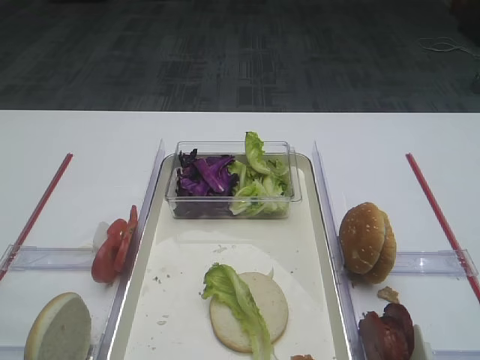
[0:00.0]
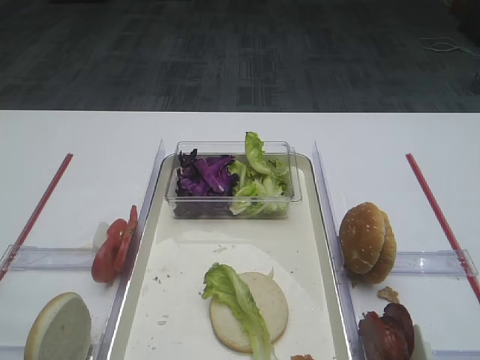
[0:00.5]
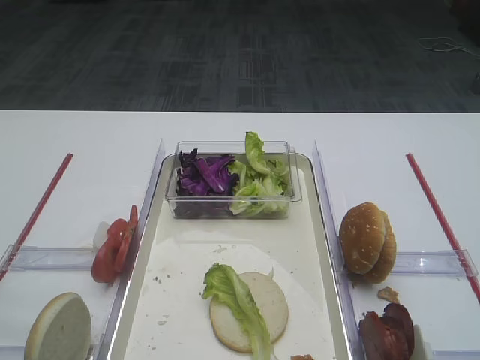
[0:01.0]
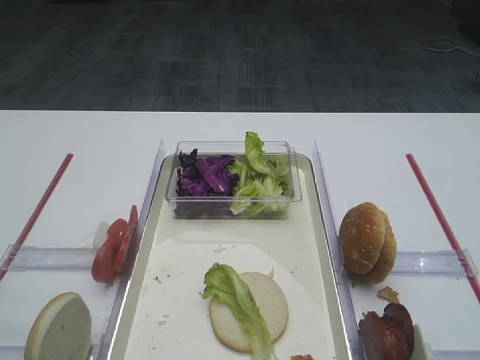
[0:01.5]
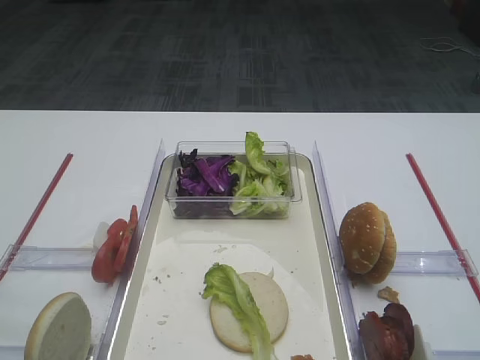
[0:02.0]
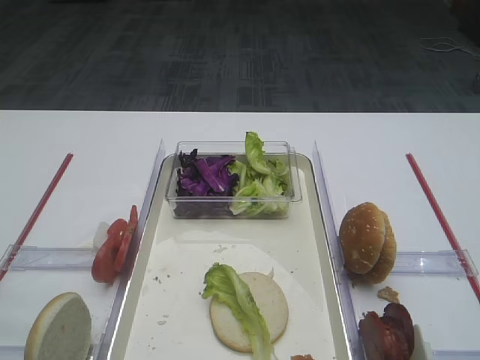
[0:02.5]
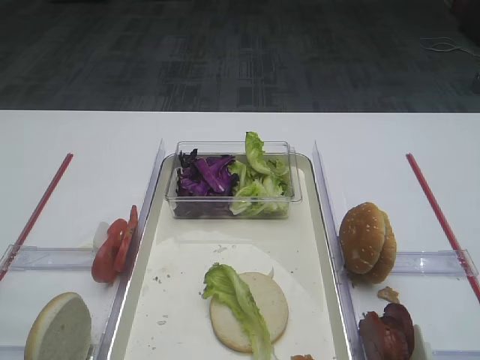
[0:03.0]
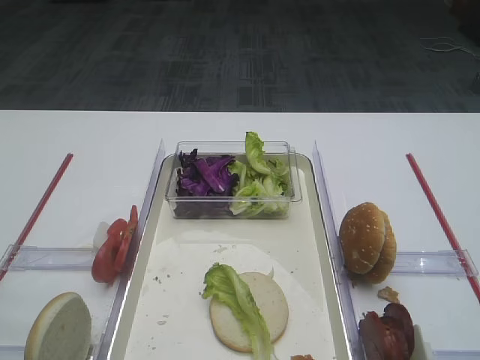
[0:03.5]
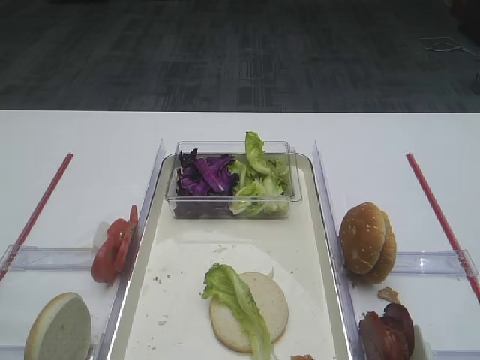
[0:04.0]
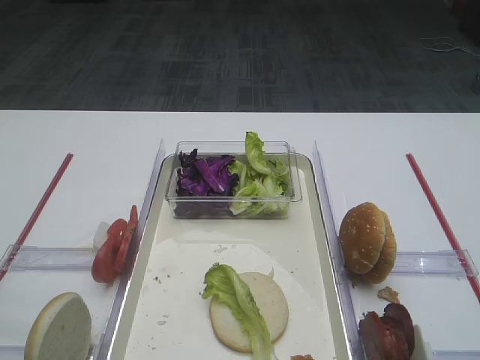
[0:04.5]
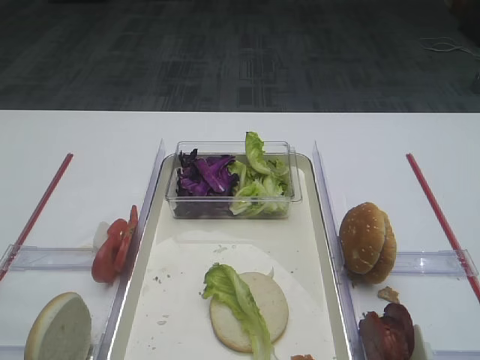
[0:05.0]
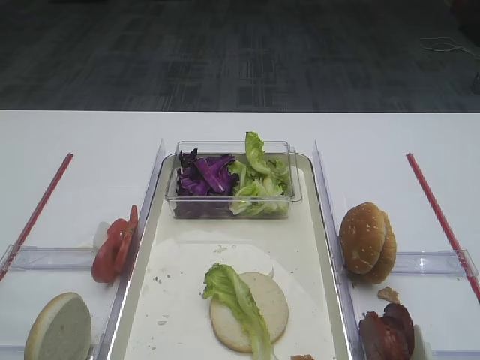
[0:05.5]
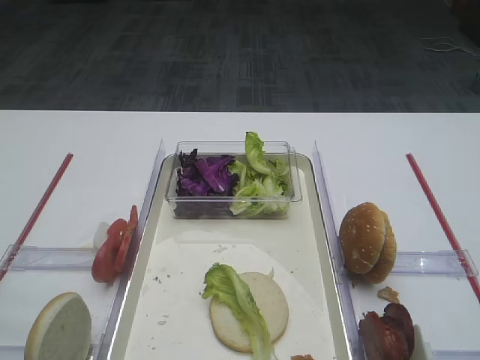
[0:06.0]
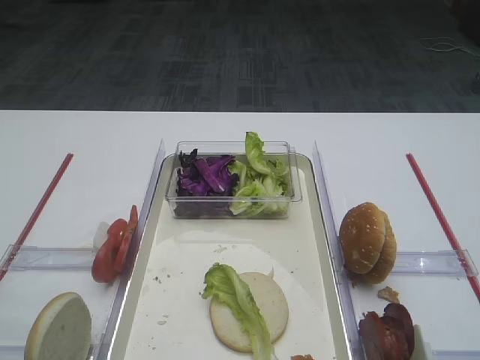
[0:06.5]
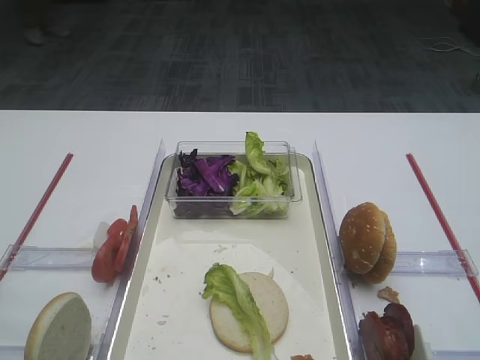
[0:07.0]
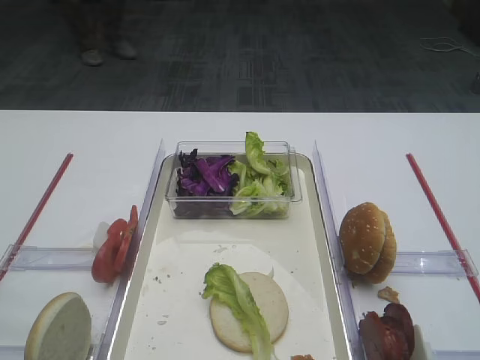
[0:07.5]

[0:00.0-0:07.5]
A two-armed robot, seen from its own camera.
0:00.0 to 0:07.5: Both grippers stay put.

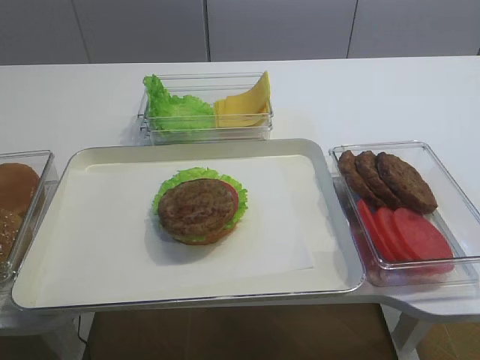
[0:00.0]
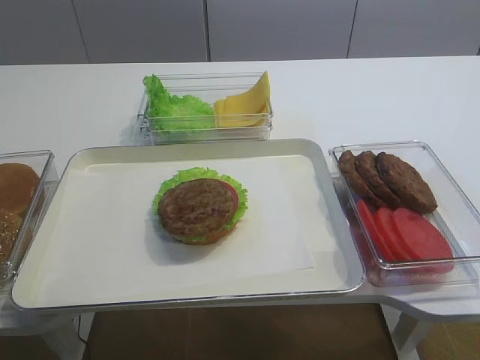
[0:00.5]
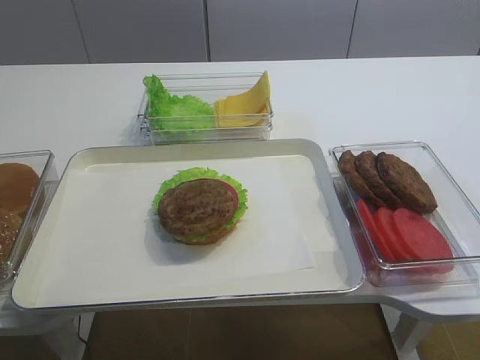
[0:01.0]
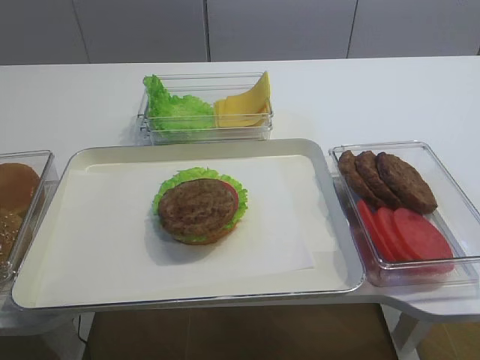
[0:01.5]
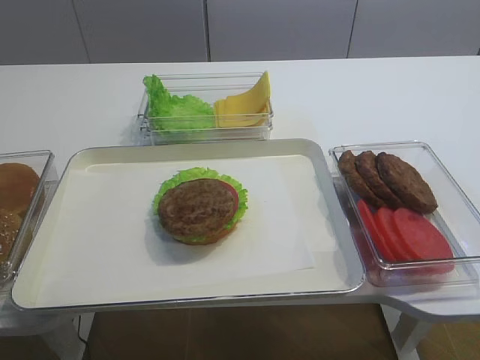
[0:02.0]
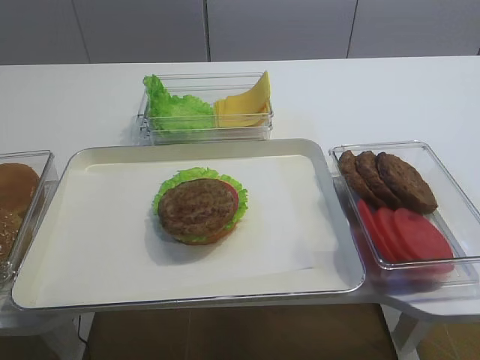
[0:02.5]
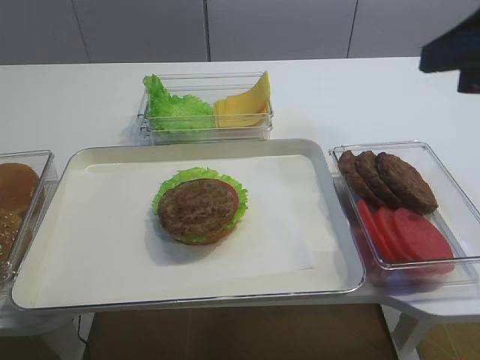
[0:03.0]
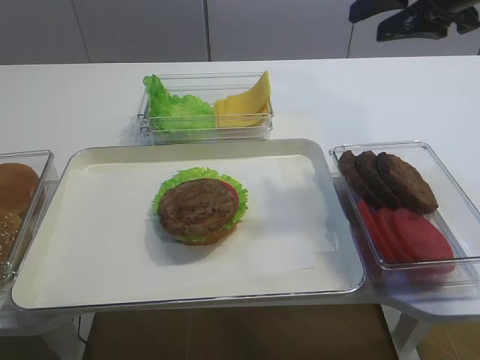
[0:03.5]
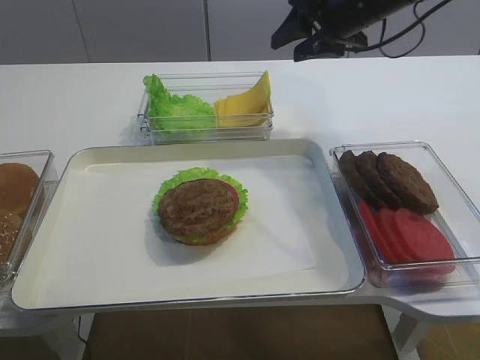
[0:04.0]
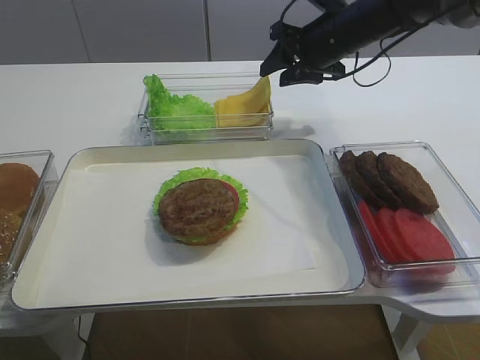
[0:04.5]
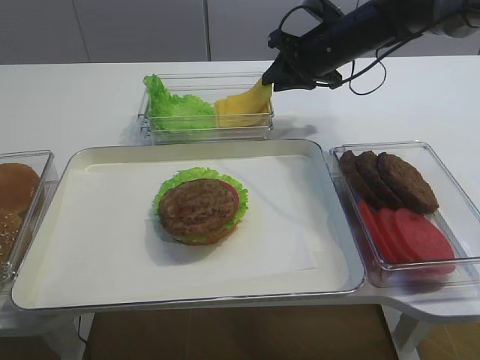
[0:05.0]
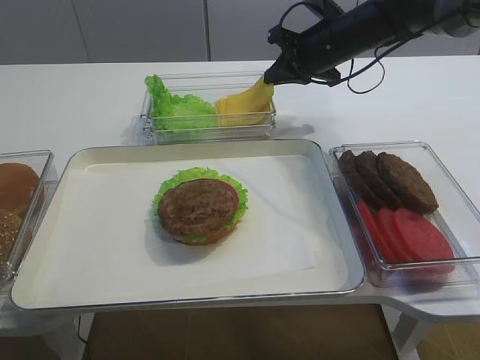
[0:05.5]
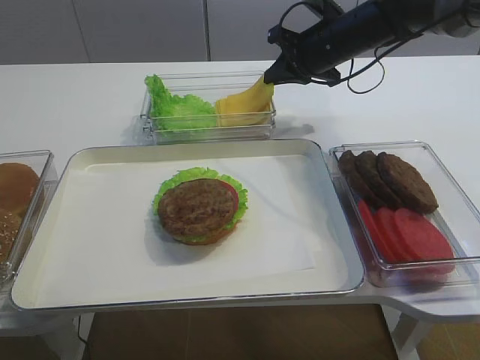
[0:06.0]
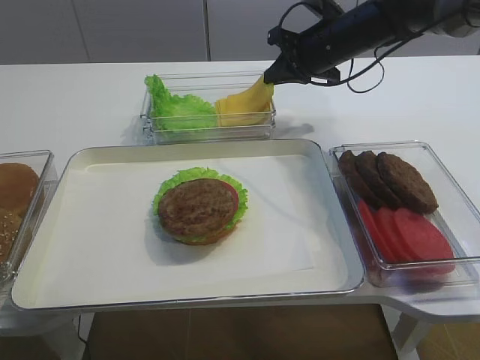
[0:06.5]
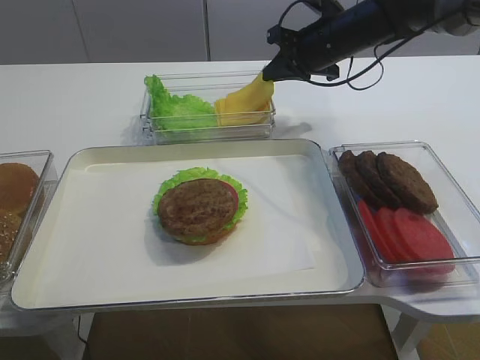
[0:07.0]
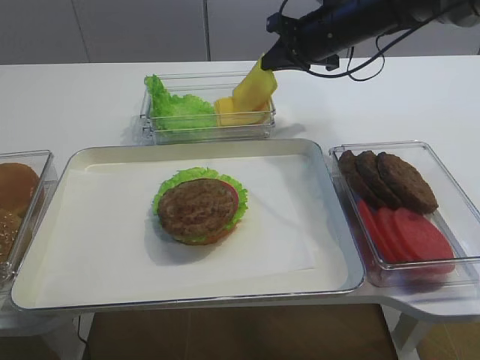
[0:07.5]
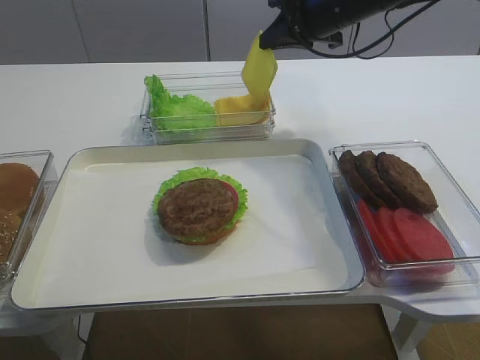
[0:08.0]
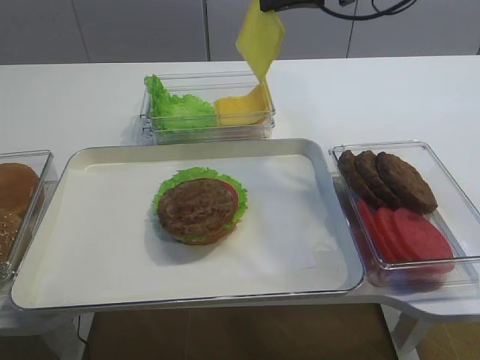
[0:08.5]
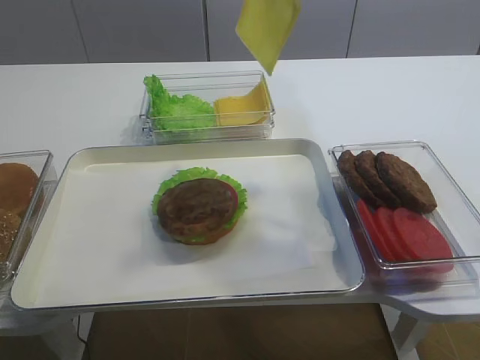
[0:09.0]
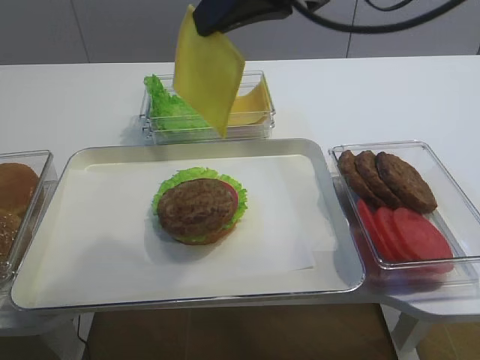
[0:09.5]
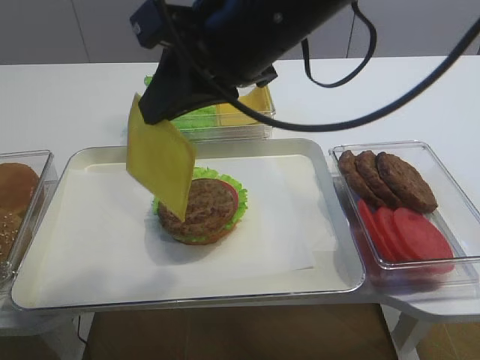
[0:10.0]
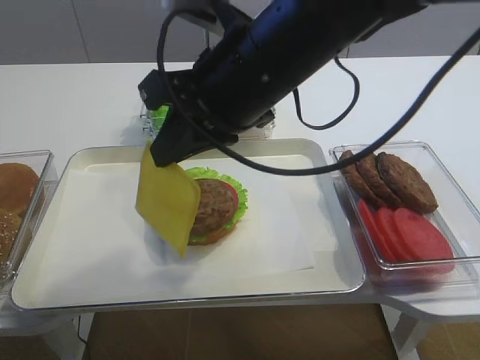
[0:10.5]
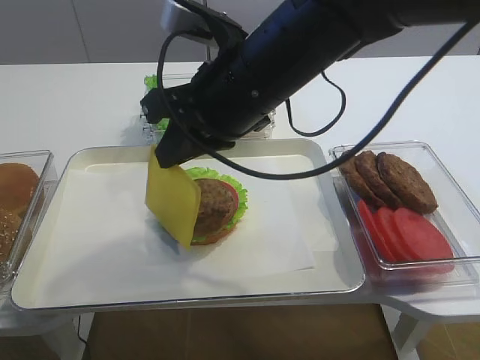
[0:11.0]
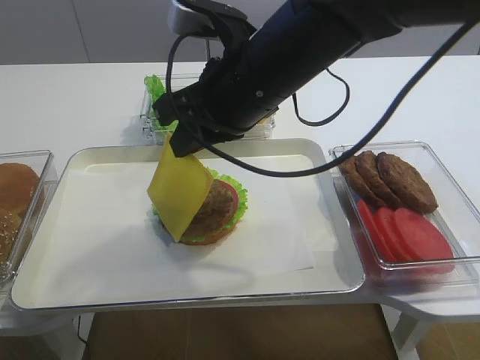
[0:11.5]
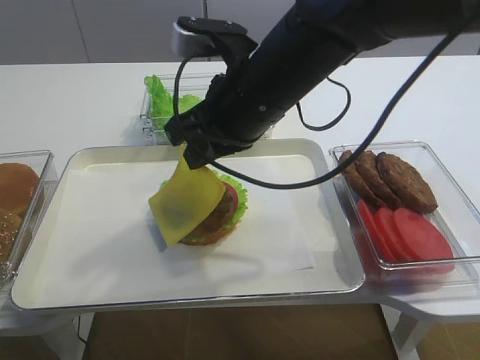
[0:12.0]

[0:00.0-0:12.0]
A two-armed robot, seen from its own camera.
Step, 0:00.0 to 0:08.0: Pick up the cheese slice with the right gripper.
0:02.0 to 0:04.0: The right gripper shifts about 50 cm forward.
0:04.0 to 0:06.0: The right gripper heads downward, covering roughly 5 cm, and closes.
0:06.0 to 0:08.0: The right gripper travels upward by some 5 cm.
0:08.0 to 0:10.0: The right gripper goes some 25 cm backward and to the left.
0:10.0 to 0:12.0: The right gripper travels downward by roughly 10 cm.

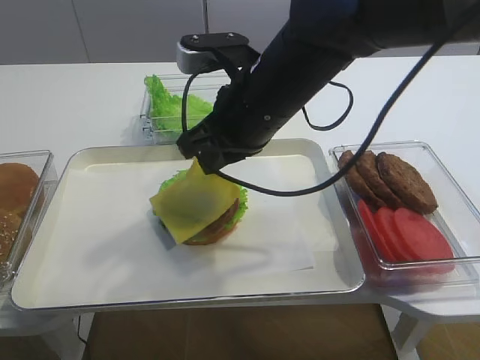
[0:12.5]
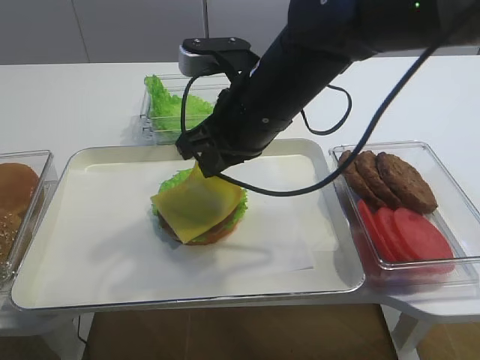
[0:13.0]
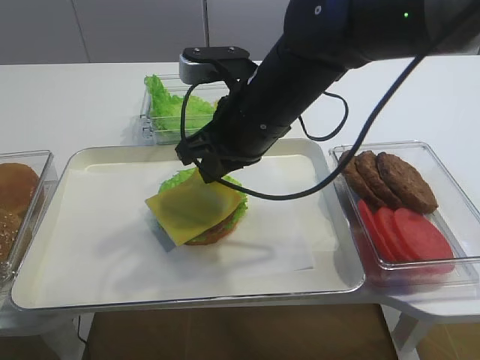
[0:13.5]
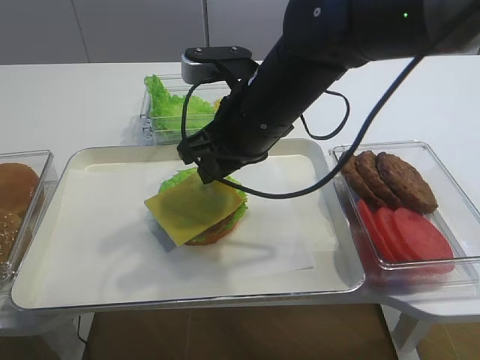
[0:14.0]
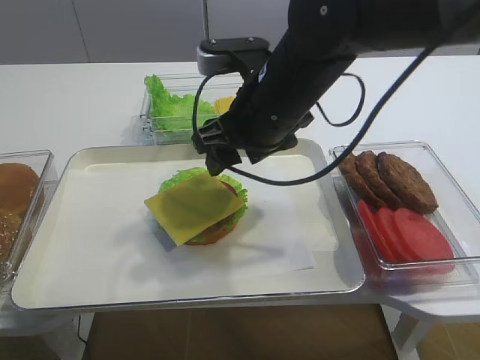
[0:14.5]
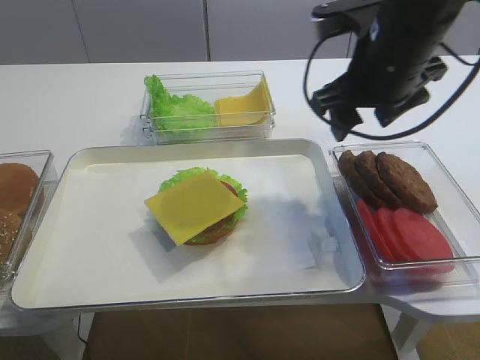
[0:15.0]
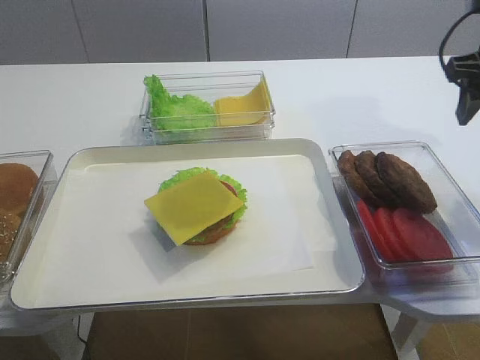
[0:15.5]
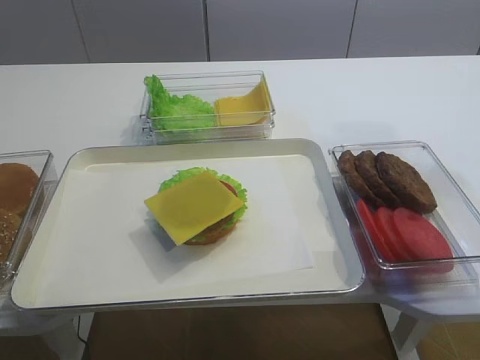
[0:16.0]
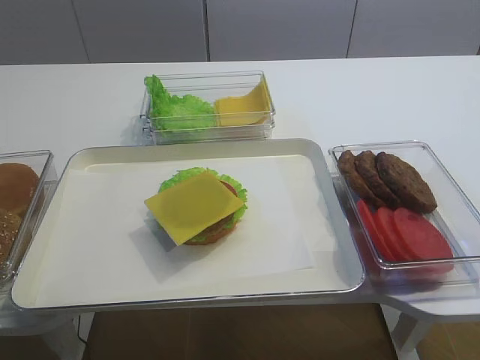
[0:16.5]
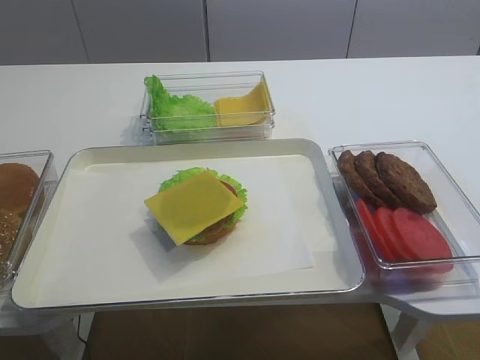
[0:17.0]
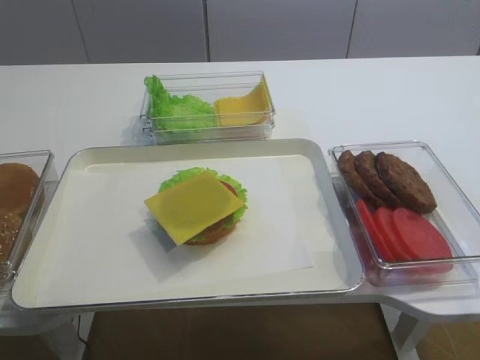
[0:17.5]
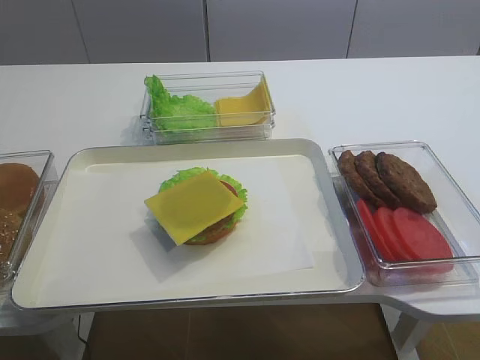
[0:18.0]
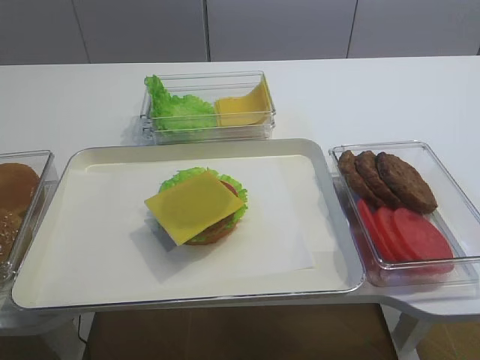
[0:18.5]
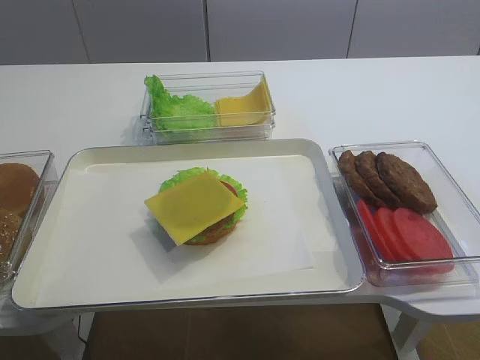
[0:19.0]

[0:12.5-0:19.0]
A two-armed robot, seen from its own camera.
0:12.5 to 0:14.5: The right gripper opens its fingers.
0:14.5 to 0:17.0: The right gripper moves backward, to the right and upward, roughly 40 cm.
0:17.0 to 0:19.0: The right gripper travels downward by about 10 cm.
